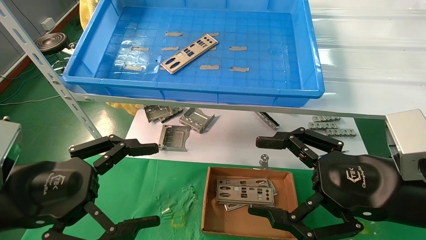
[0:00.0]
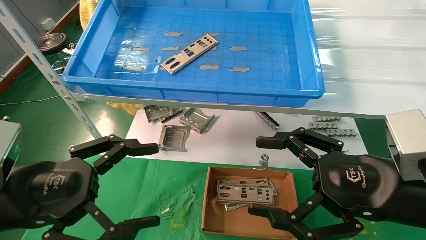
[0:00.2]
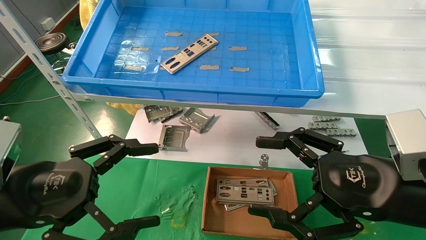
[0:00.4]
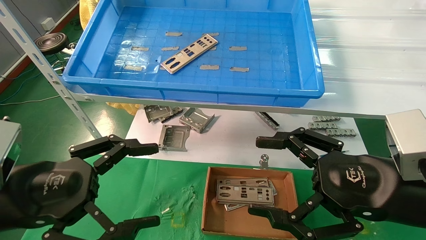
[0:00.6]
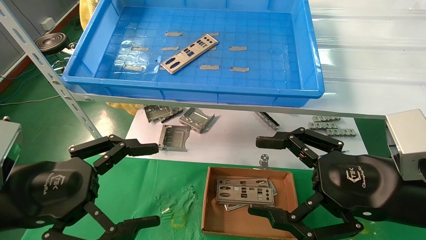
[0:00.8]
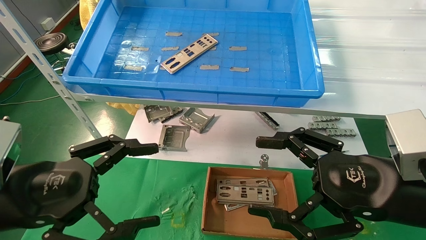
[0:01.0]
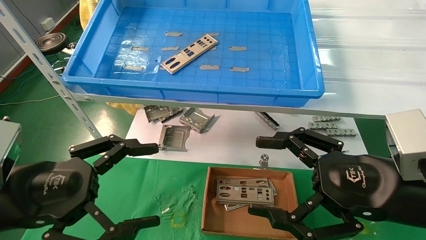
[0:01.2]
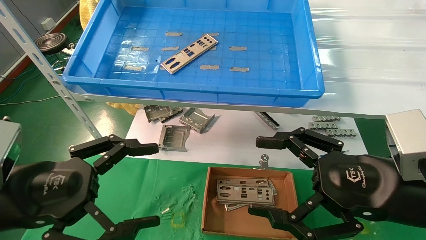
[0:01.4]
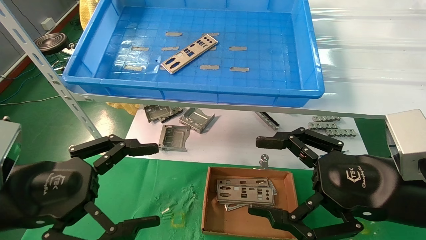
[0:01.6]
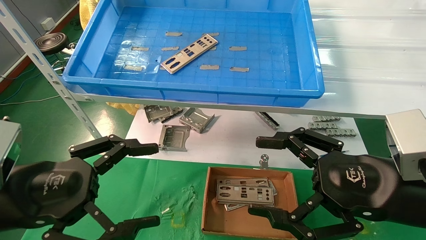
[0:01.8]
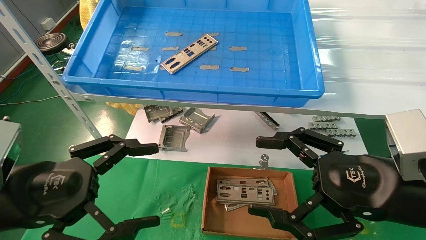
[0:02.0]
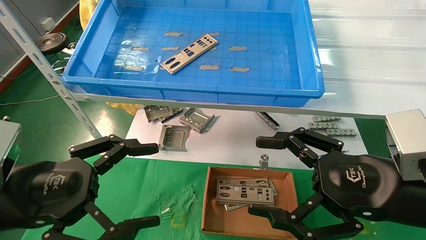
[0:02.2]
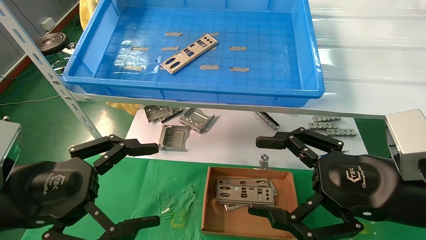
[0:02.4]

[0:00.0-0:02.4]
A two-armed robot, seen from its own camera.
Task of the whole recording: pick up the parts on the tray and put them in the cardboard box.
0:00.0 to 0:02.4: Both grippers stay put.
